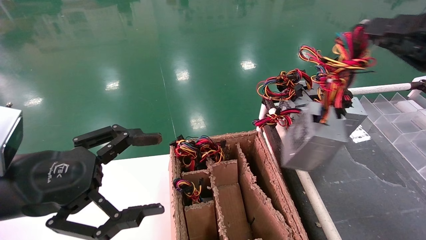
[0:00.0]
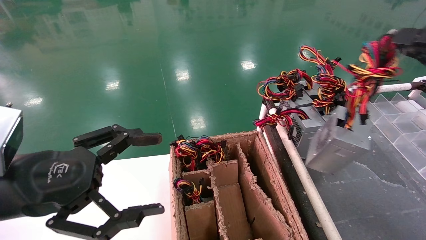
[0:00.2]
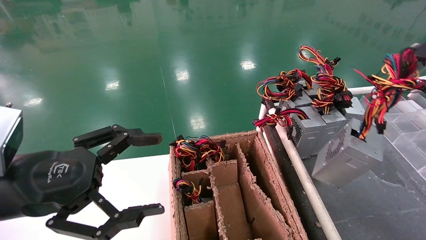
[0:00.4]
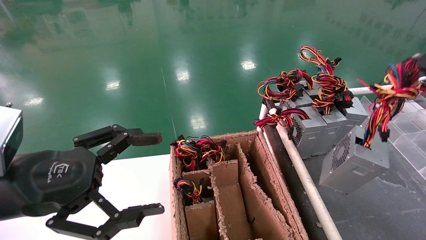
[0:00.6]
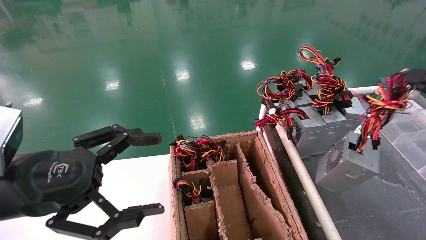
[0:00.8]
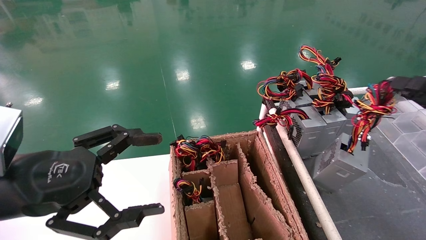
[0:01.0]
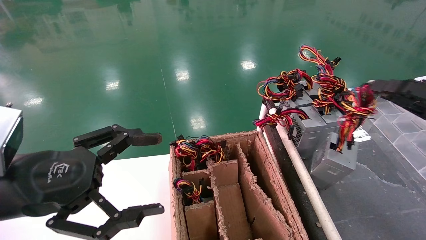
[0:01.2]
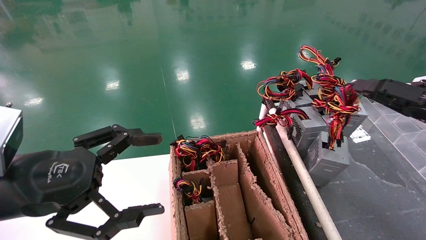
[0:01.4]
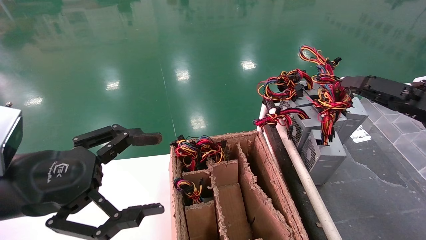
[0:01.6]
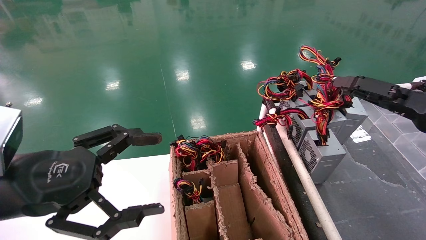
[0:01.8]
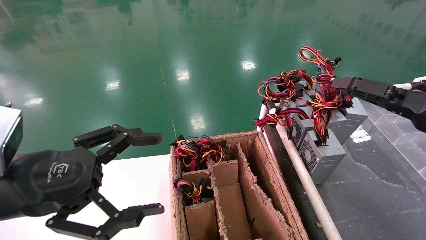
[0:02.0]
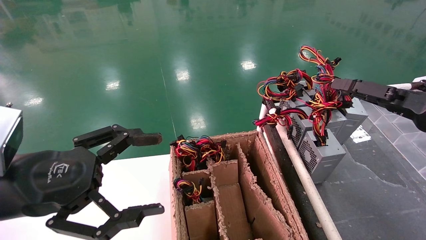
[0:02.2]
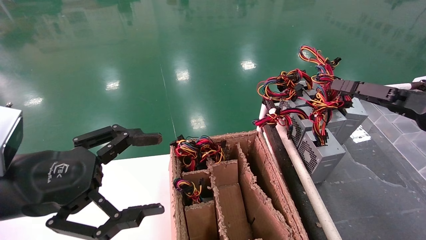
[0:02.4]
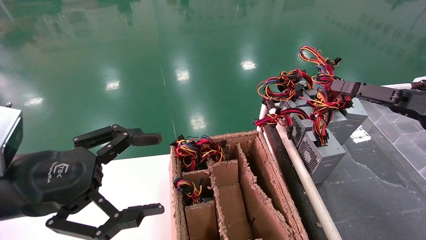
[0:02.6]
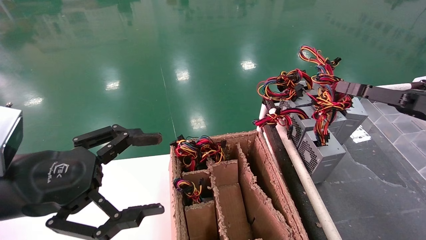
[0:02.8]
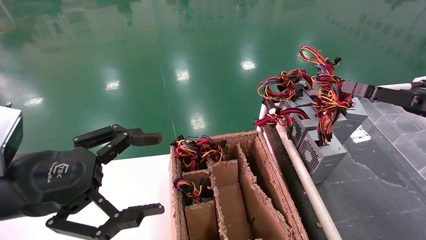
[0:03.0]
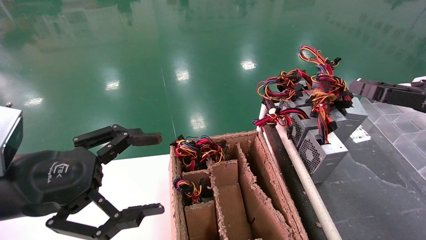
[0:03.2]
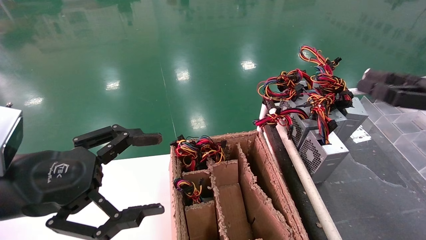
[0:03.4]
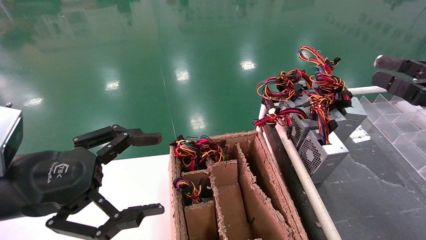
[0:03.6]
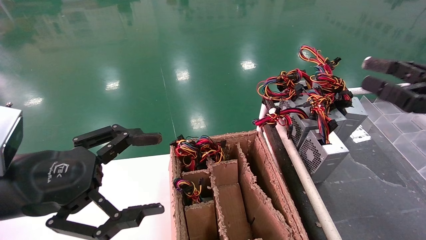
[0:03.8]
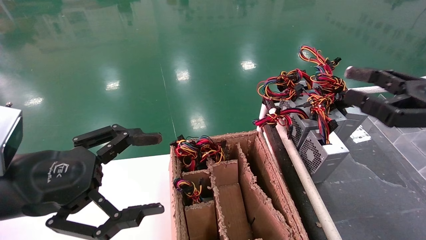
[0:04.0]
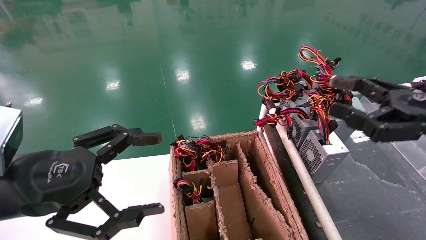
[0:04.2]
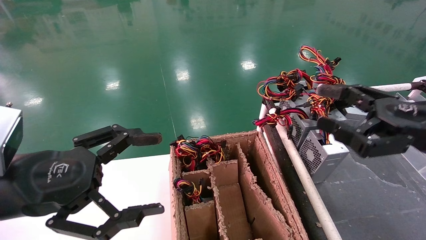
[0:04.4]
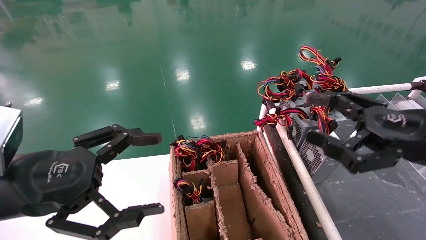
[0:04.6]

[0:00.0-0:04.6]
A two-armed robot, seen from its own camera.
Step, 0:00.0 to 0:02.6: Place the power supply on the operating table.
0:00.0 to 0:01.6: The right gripper moves forward and downward, approximately 10 cm.
0:01.6 to 0:03.0: The right gripper opens its fingers.
0:03.0 to 0:04.6: The right gripper is displaced to the left by roughly 10 cm, and opens its fingers.

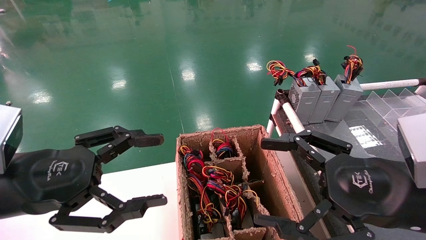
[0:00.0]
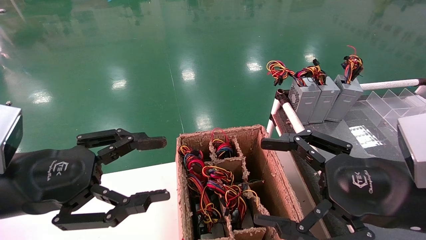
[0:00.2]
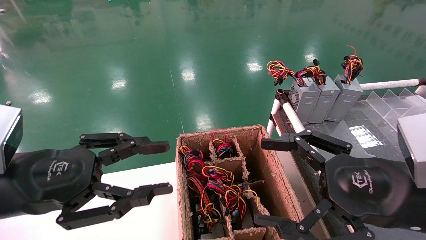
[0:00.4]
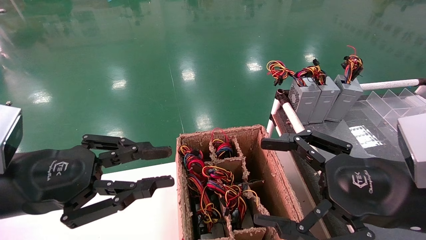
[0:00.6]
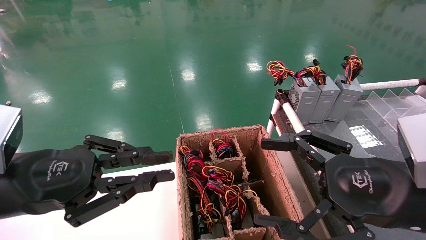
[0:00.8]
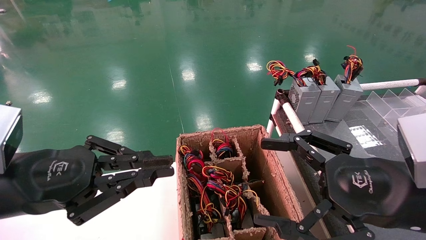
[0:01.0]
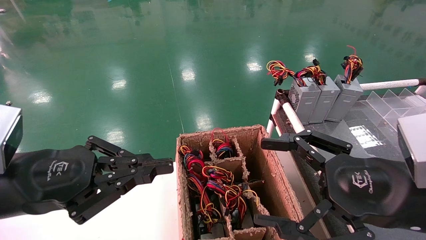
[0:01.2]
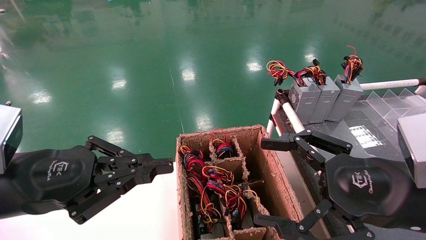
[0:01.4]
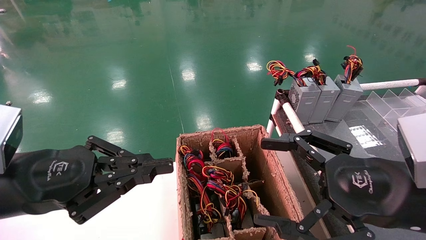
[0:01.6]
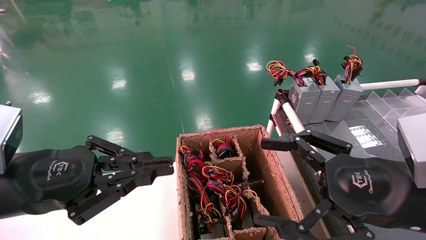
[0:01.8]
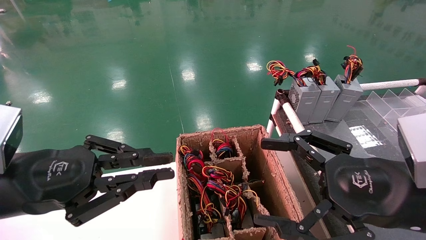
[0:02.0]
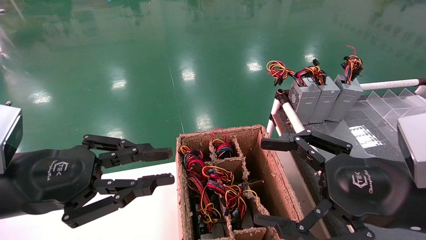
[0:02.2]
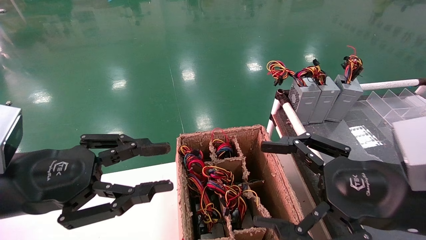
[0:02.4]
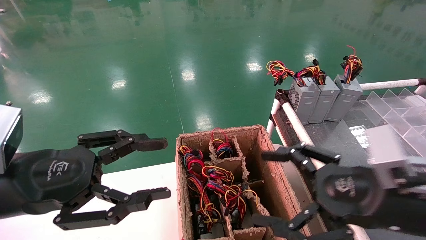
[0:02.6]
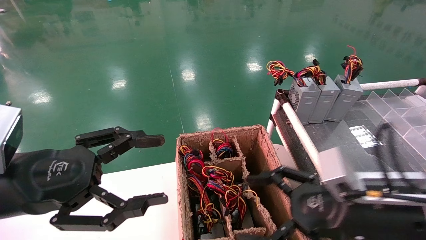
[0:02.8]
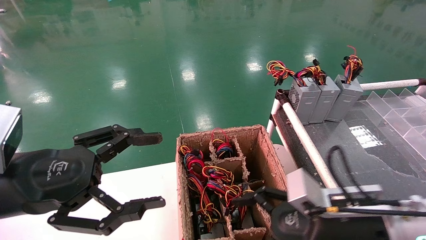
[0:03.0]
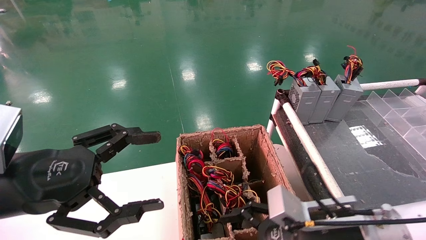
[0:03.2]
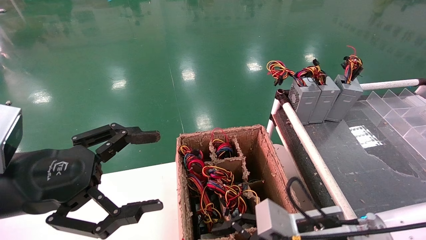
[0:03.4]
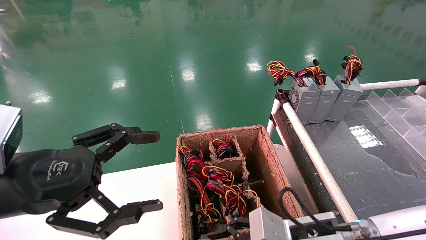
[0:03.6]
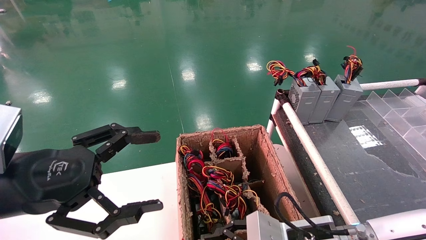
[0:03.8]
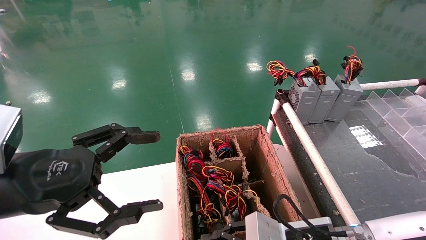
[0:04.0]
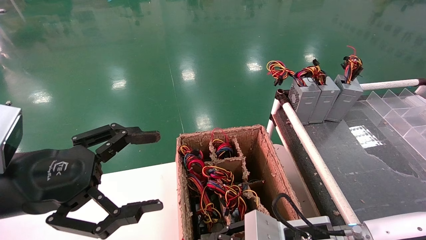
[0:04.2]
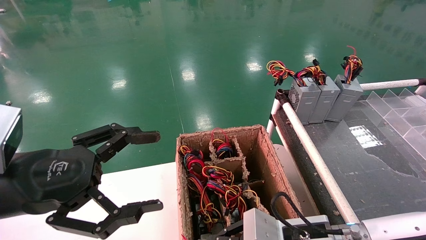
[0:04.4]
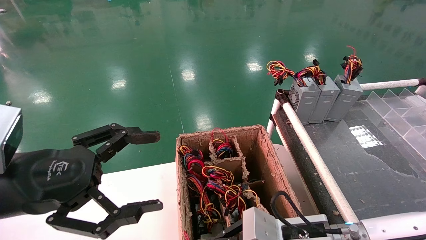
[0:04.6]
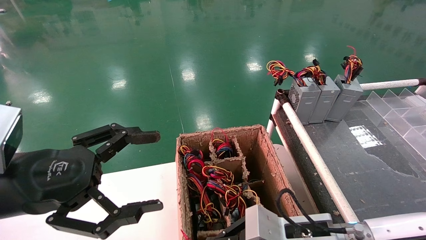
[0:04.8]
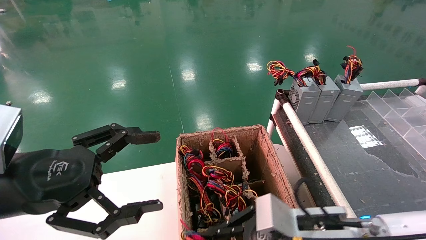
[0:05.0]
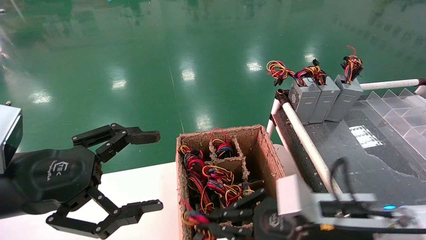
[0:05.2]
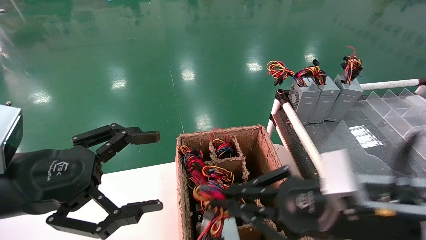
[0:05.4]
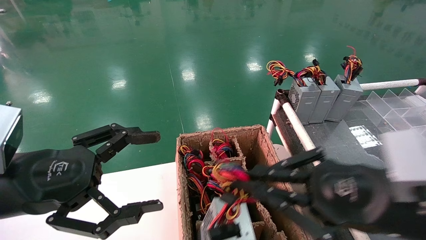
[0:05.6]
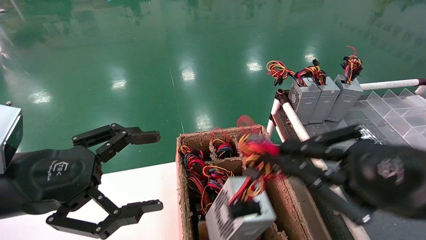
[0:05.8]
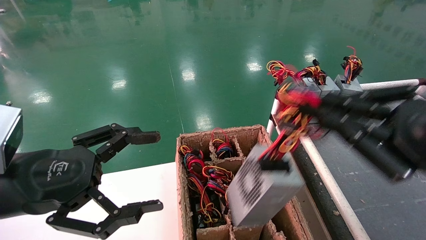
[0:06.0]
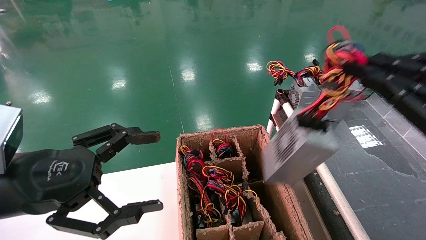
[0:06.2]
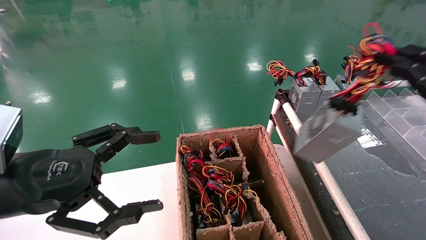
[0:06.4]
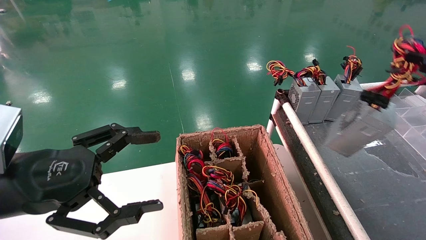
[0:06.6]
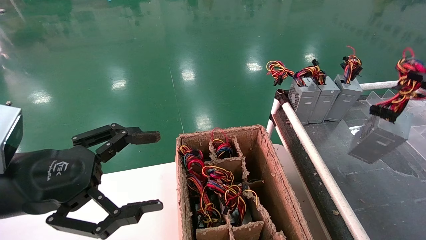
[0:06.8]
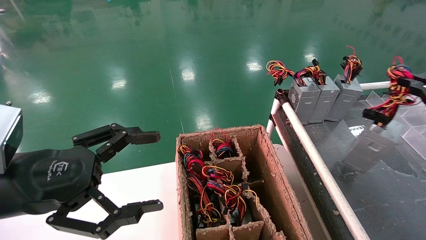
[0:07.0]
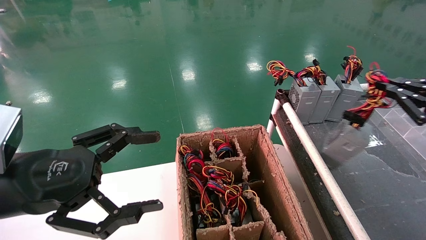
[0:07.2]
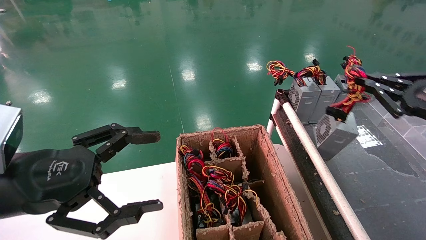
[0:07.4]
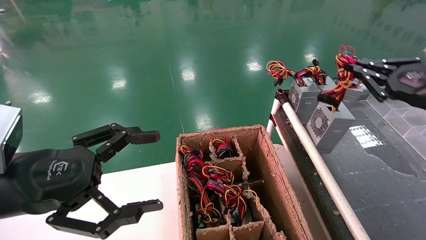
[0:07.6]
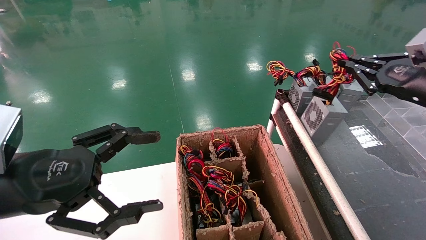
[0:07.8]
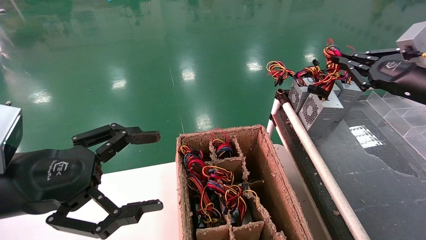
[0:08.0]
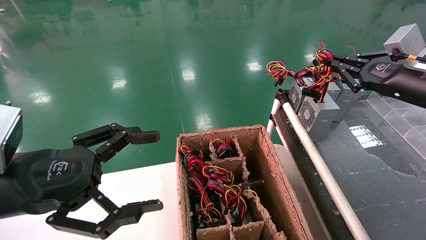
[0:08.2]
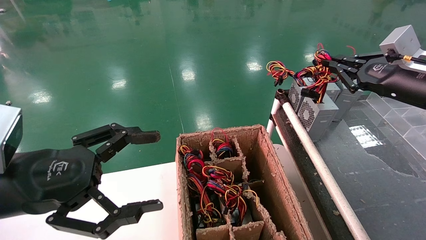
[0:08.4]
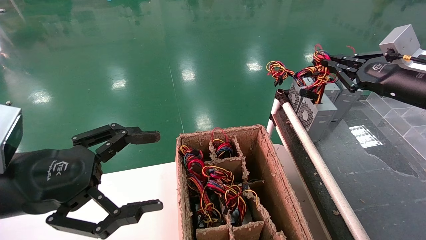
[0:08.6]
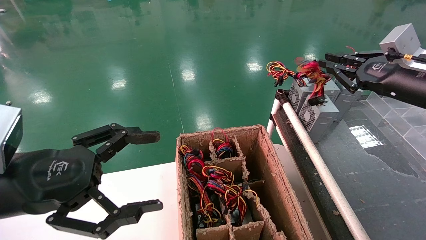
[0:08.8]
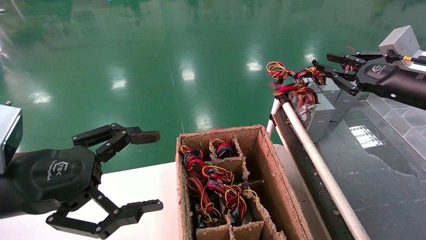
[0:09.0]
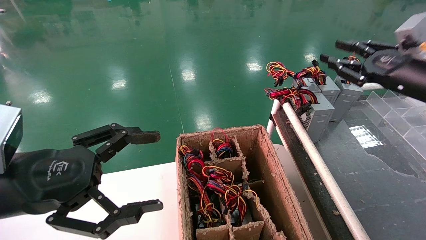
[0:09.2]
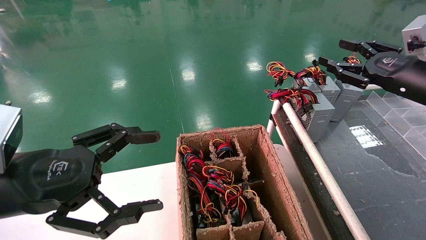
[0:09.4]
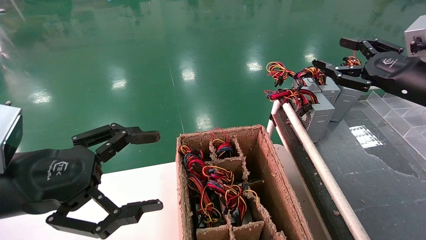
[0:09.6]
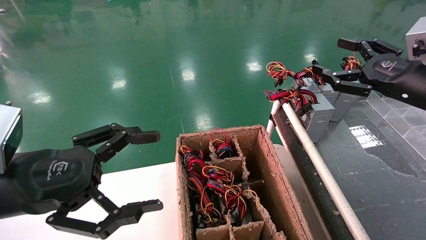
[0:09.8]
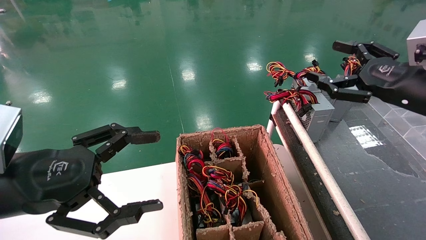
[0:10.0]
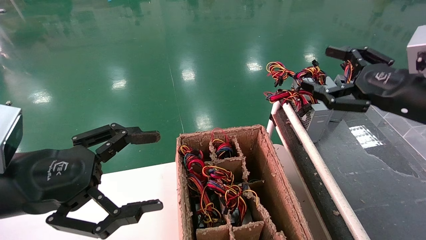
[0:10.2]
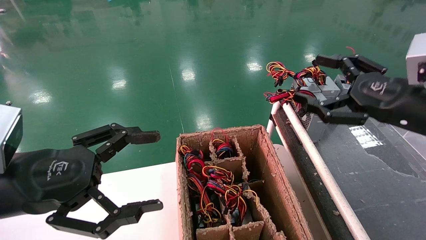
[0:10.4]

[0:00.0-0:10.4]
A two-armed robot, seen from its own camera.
Step, 0:00.4 to 0:04.6: Grab and lift the power supply from the large box.
Step, 0:04.8 to 0:08.8: Place the power supply on the operating table.
0:00.0 to 0:01.4: The left gripper closes its fingers.
0:01.4 to 0:03.0: The right gripper is displaced downward and forward by about 10 cm. Meanwhile the left gripper opens.
0:03.0 to 0:04.4: The right gripper goes some 5 cm downward and to the left, and closes up.
0:04.4 to 0:06.0: The right gripper moves upward, to the right and backward, some 25 cm.
0:06.0 to 0:07.4: The right gripper is displaced forward and to the right by approximately 20 cm.
0:07.4 to 0:09.0: The right gripper is displaced forward by approximately 5 cm.
0:09.0 to 0:10.4: The right gripper moves backward, approximately 10 cm, and opens up.
